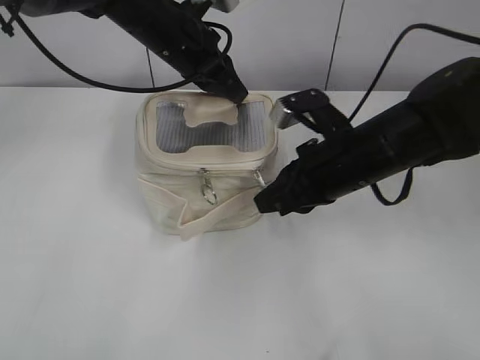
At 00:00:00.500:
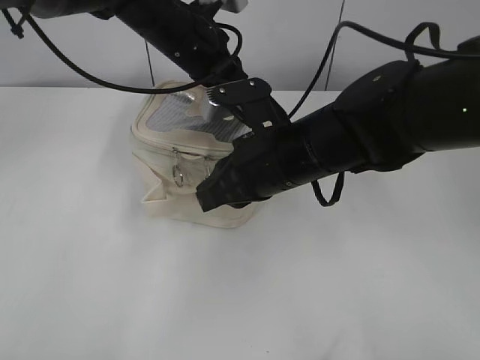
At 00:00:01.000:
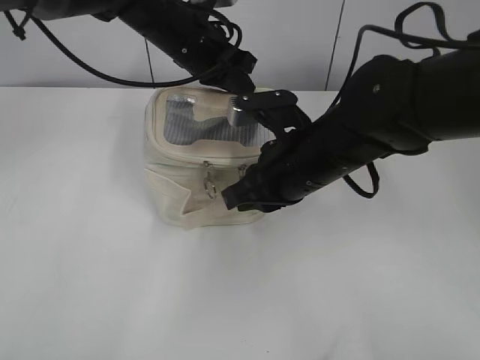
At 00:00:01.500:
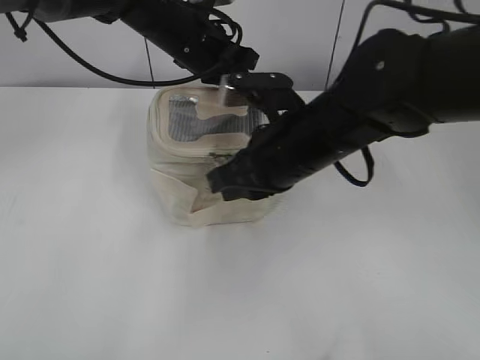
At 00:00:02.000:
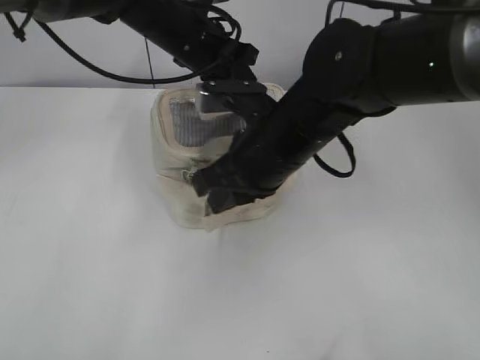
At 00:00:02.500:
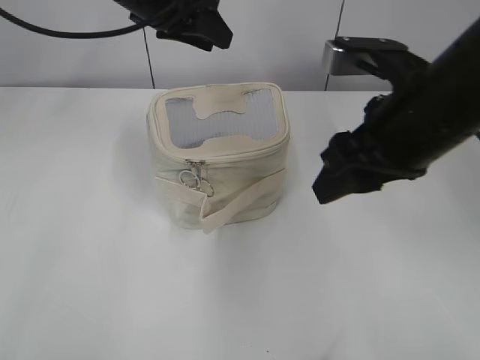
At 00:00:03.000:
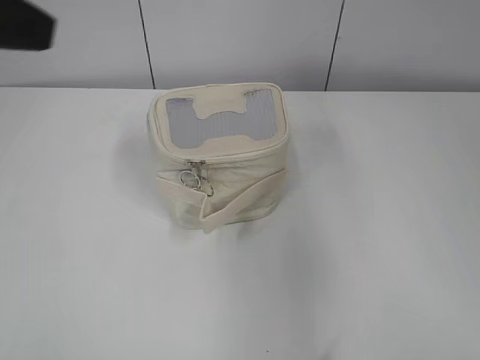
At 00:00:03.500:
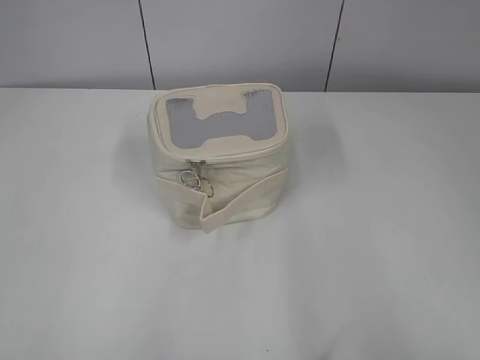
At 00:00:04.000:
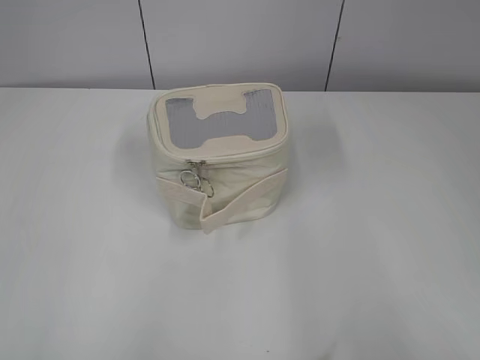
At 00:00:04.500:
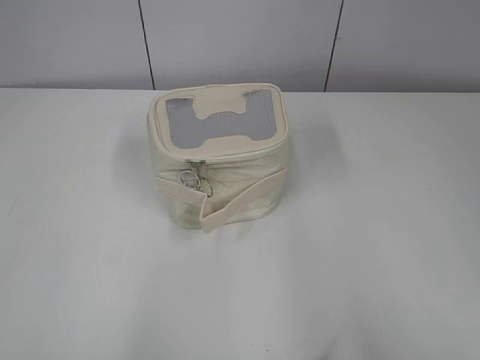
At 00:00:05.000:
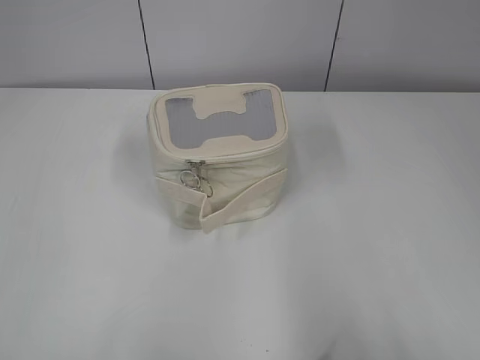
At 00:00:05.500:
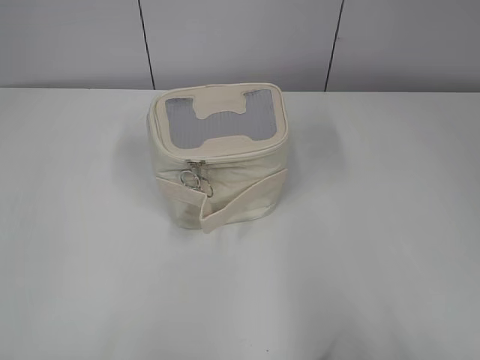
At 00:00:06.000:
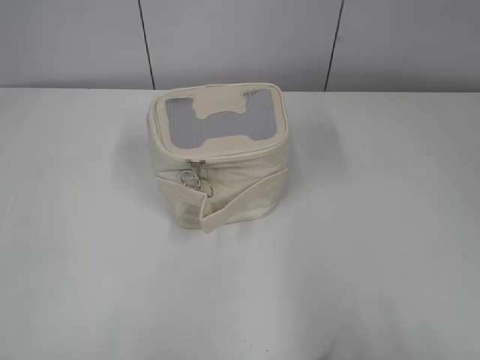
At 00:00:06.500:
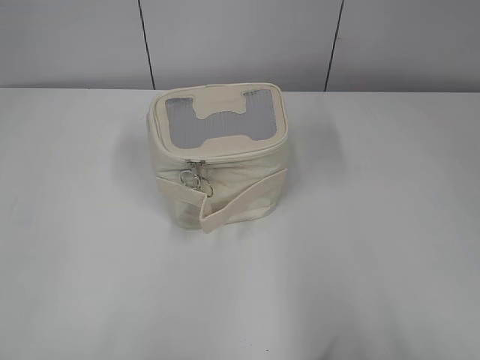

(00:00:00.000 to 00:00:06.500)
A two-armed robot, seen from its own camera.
Step, 00:00:00.000 - 00:00:02.000: Zip up the bag with your right hand.
00:00:00.000 - 00:00:02.000: The right gripper goes about 10 cm to the left.
00:00:02.000 - 00:00:04.500: The left gripper travels backward and to the left by about 50 cm, and opens. Meanwhile the right gripper goes approximately 40 cm backward and to the right, and opens.

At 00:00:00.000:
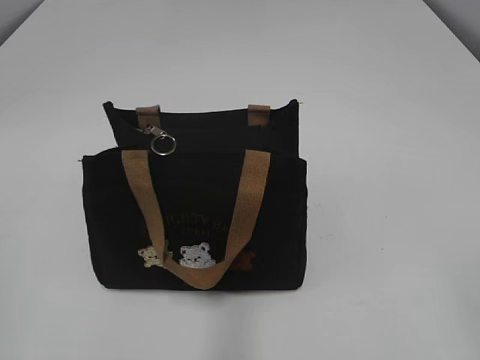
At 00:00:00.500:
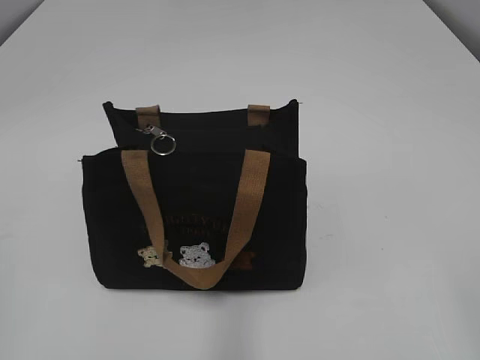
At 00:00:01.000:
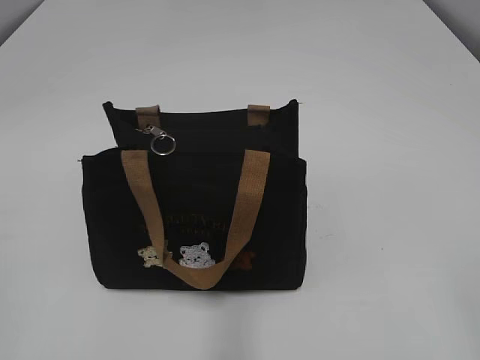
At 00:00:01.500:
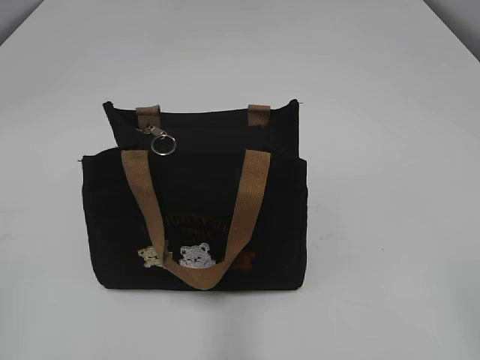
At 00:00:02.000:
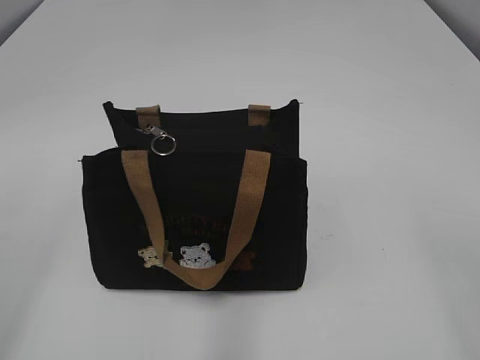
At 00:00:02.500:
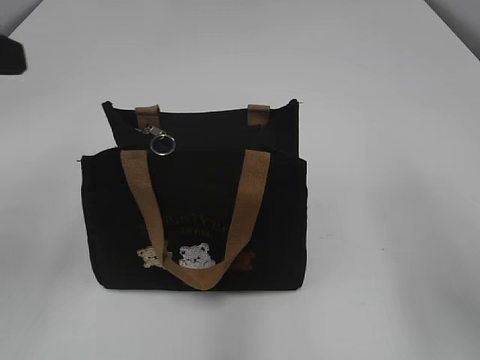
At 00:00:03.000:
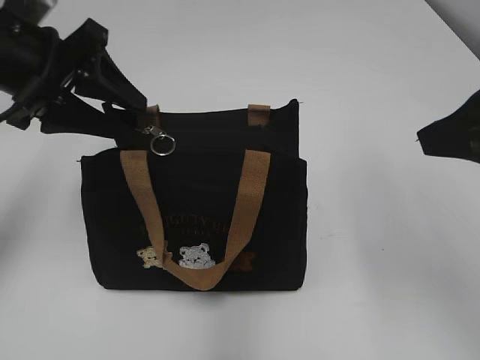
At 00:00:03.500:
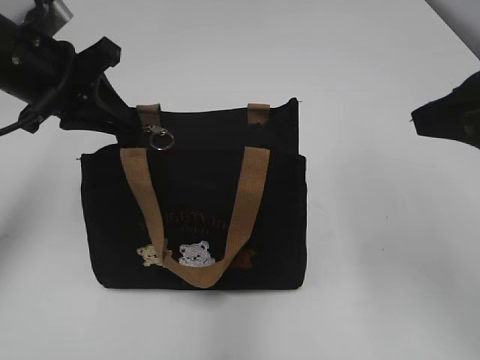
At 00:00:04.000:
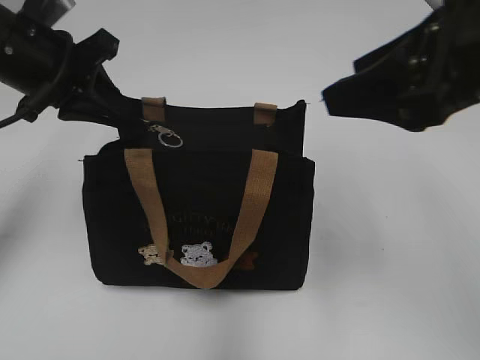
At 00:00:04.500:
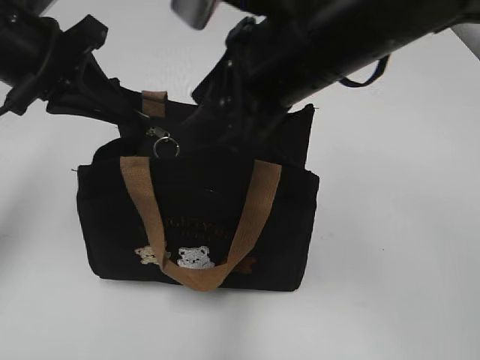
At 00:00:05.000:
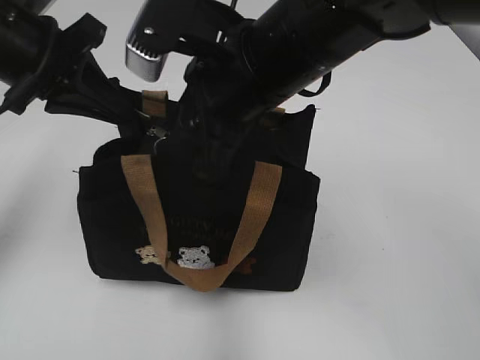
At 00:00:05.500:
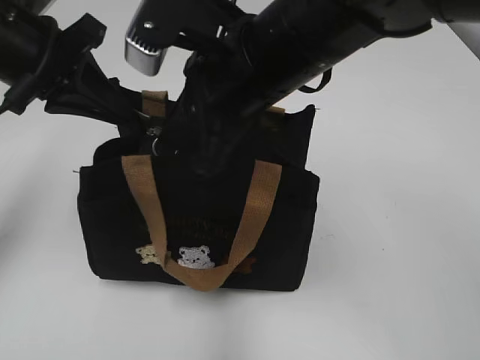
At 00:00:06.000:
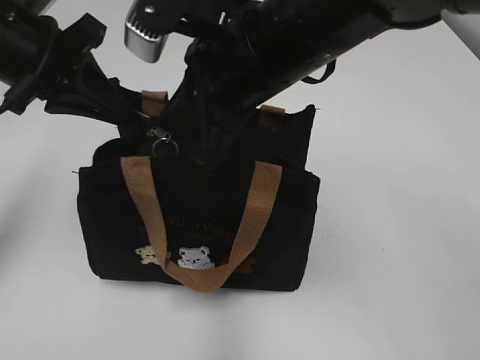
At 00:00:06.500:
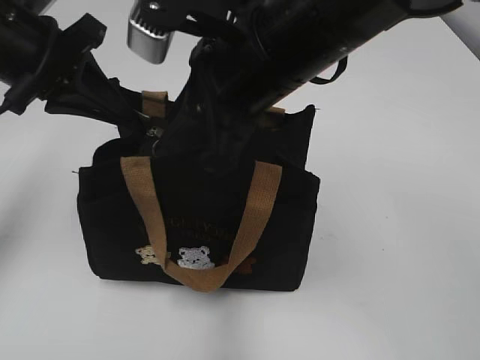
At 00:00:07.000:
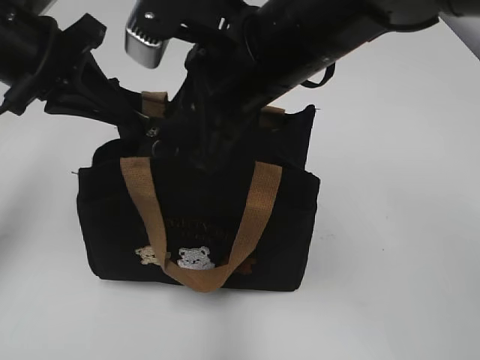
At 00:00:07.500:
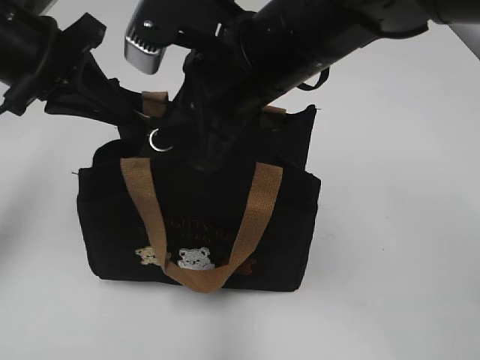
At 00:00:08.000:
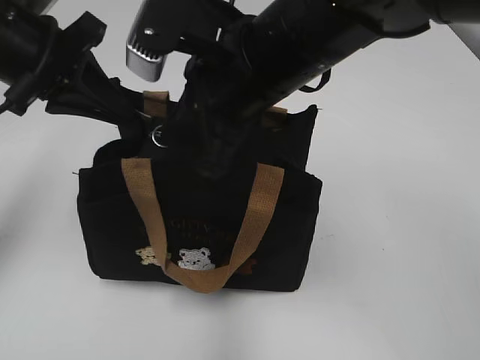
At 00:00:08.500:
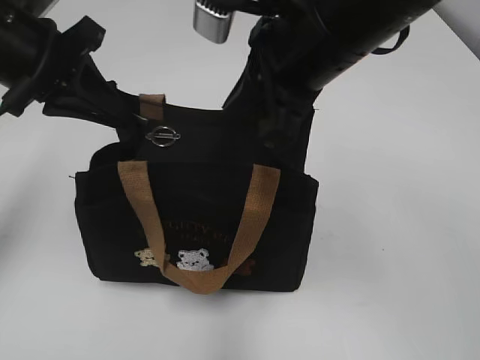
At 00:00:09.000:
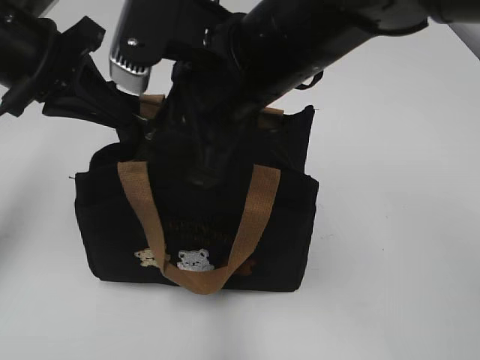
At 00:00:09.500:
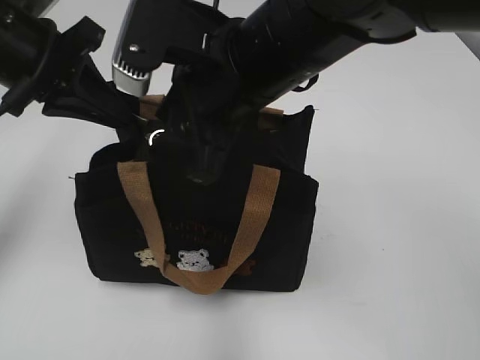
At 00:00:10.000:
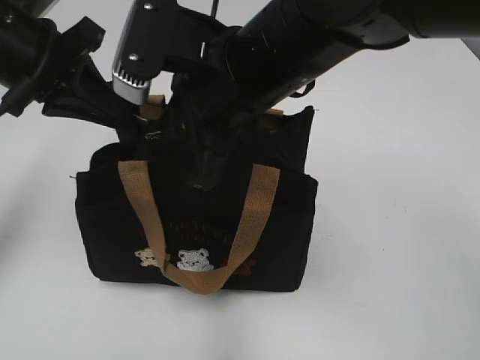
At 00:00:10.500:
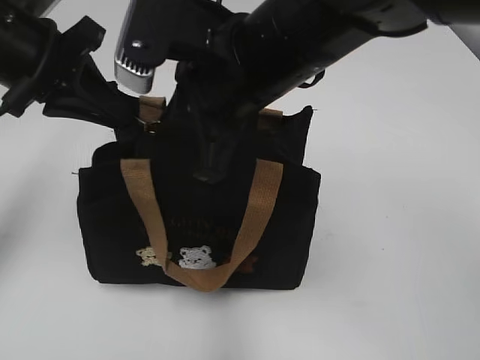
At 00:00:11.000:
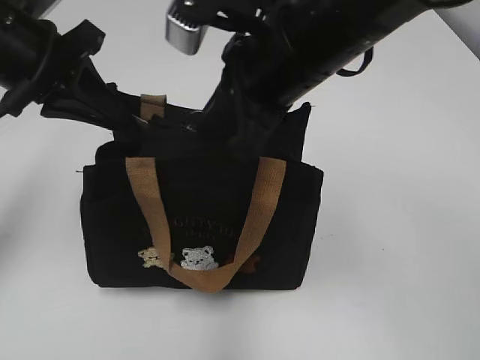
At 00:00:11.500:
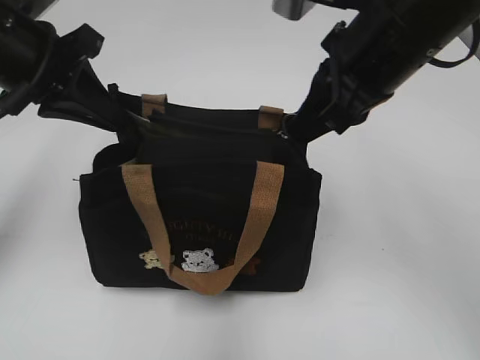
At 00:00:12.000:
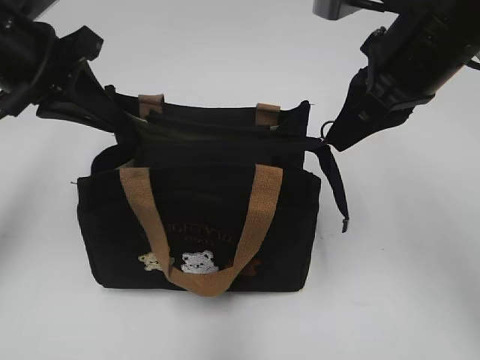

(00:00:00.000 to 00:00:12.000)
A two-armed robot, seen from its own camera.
00:00:02.000 - 00:00:04.000: The left gripper heads forward, covering about 30 cm, and closes its fingers. Meanwhile the right gripper goes roughly 20 cm forward and to the left.
00:00:04.000 - 00:00:06.000: The right gripper shifts approximately 15 cm to the left and forward, and closes up.
00:00:06.000 - 00:00:08.000: The right gripper opens, then closes once more.
00:00:08.000 - 00:00:10.000: The right gripper opens its fingers.
00:00:10.000 - 00:00:12.000: The right gripper shifts roughly 15 cm to the right, and closes.

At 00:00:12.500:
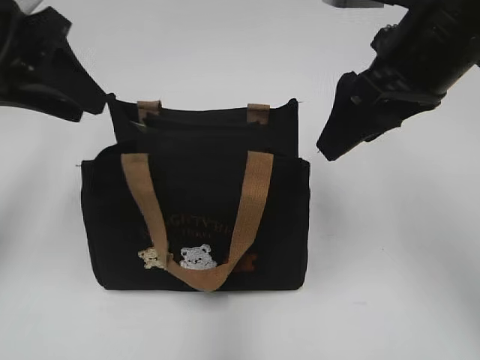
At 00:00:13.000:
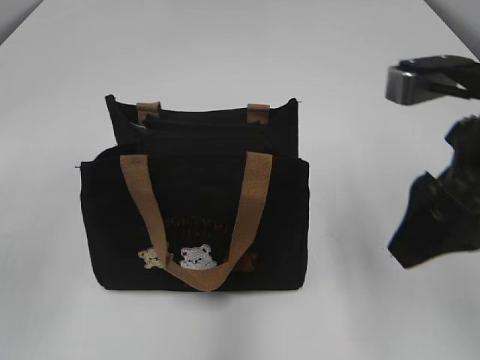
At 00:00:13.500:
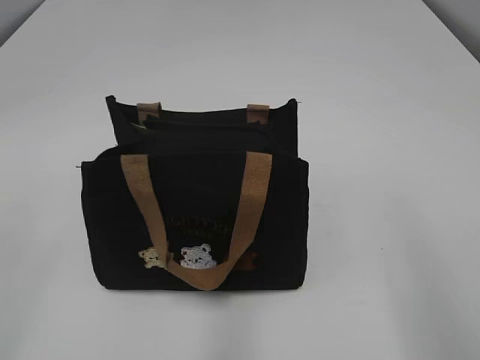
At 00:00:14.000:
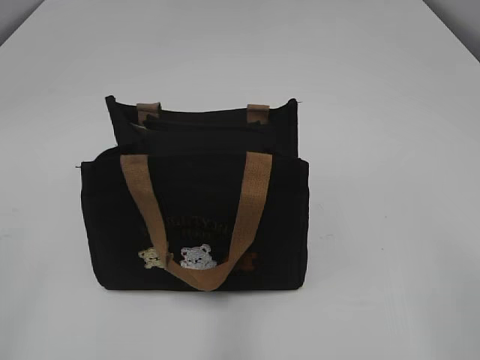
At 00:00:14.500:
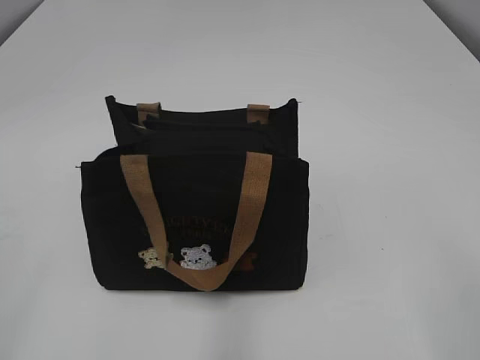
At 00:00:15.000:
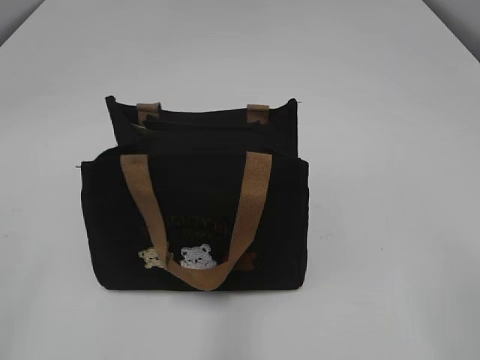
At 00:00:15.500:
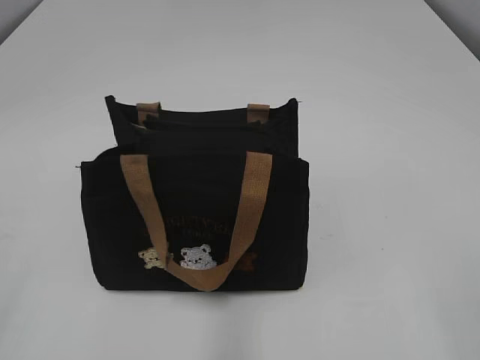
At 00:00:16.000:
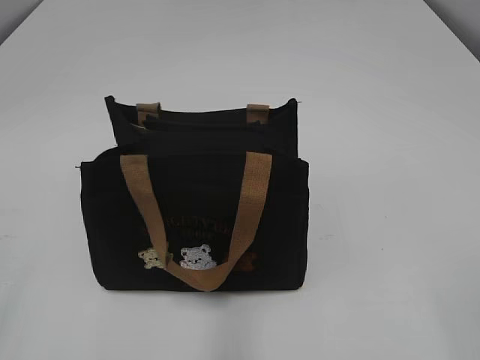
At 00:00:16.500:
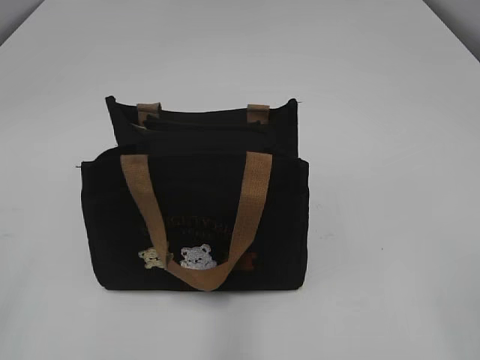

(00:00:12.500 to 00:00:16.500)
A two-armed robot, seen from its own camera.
00:00:12.500 - 00:00:14.500: The grippers both shift backward by roughly 30 cm.
